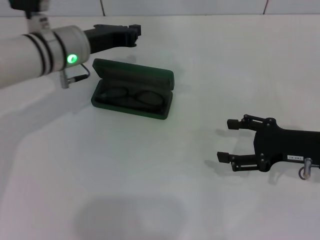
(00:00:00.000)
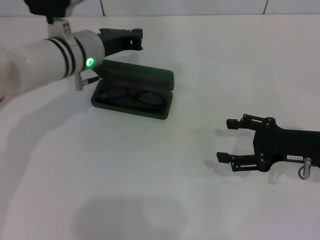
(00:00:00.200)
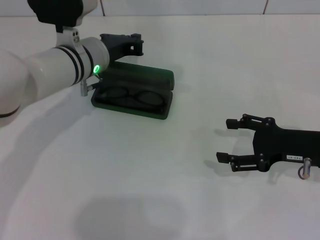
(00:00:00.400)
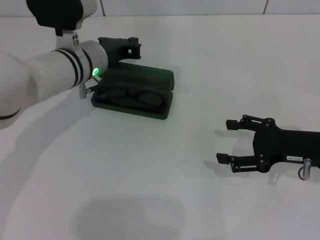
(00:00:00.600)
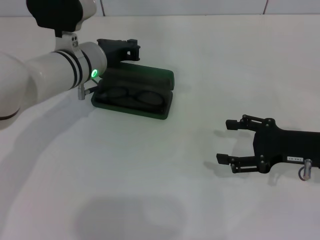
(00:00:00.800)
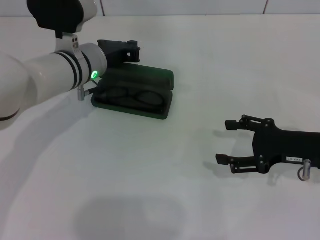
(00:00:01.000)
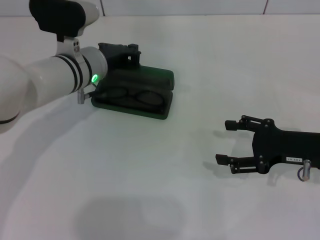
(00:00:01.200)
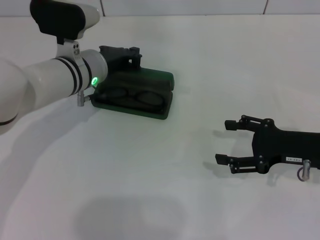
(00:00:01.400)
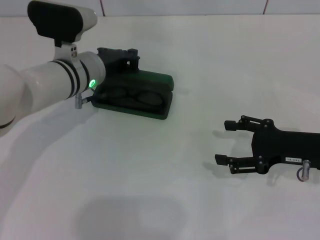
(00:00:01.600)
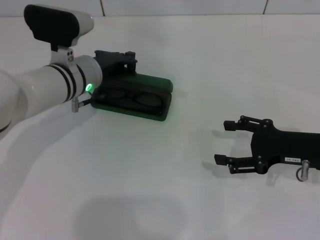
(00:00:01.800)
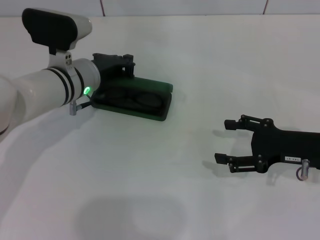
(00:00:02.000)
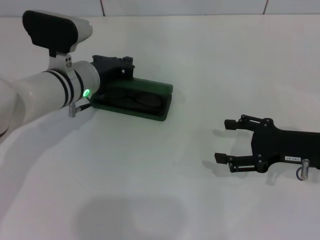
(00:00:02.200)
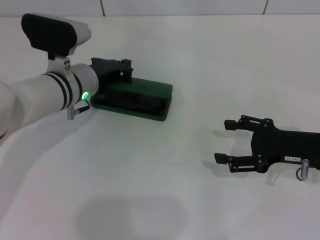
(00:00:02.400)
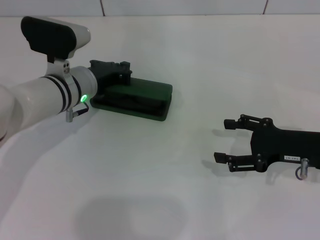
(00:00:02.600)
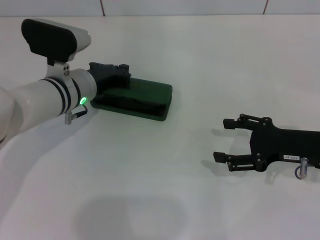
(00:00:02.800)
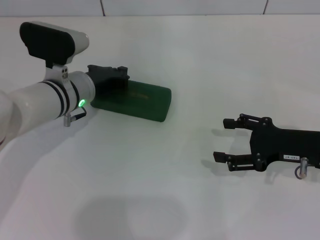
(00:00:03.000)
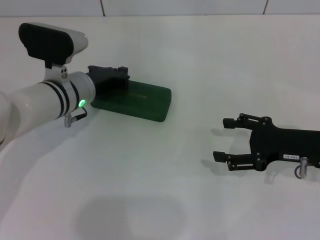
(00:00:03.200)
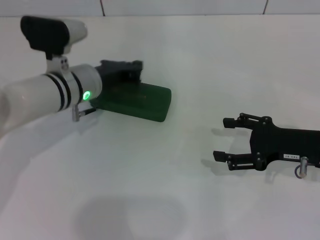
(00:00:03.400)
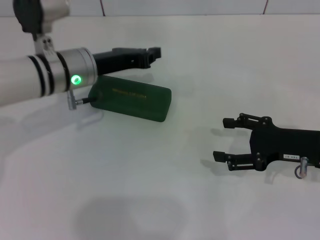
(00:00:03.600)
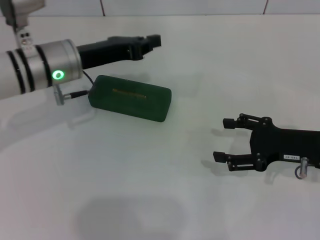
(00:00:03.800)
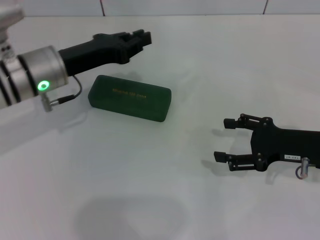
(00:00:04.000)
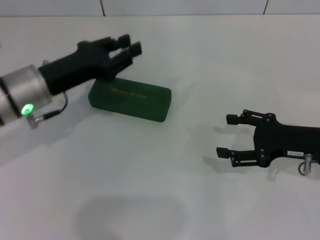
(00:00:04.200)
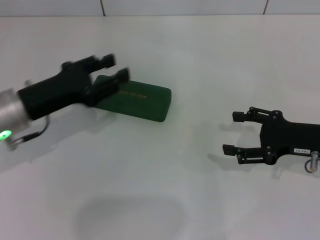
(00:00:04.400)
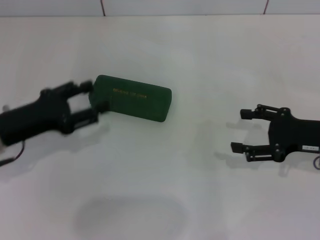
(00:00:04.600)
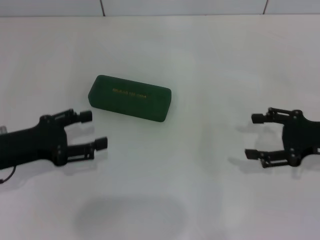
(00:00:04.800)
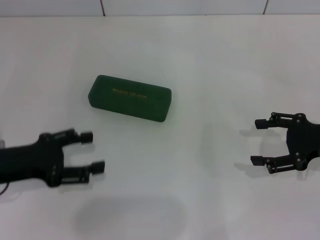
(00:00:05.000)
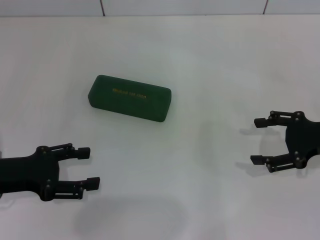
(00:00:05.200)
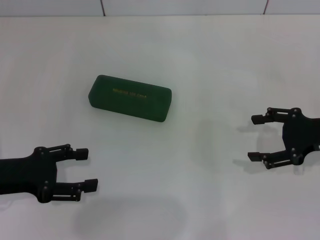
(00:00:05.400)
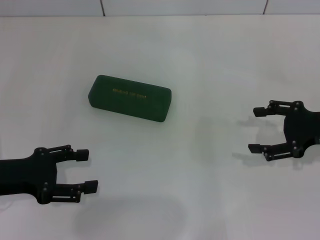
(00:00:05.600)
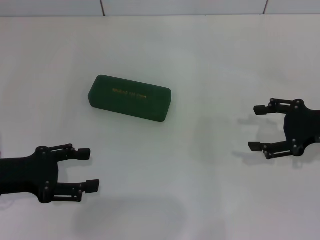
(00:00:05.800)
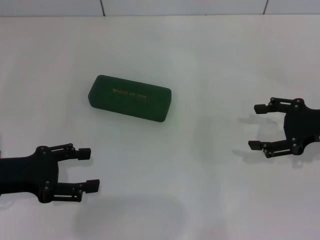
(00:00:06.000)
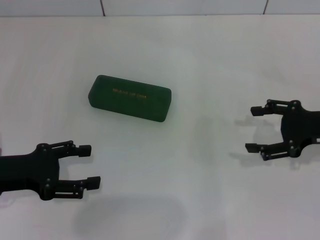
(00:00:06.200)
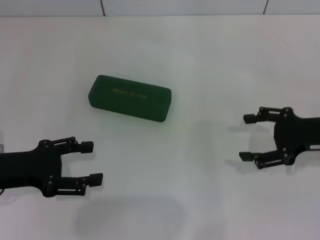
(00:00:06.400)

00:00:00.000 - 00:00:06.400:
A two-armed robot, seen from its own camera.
Step, 00:00:00.000 - 00:00:03.000: Close the glasses case with your left hand.
00:00:00.000 - 00:00:01.600: There are only small adjustments of the grippers.
00:00:01.600 - 00:00:03.200: The grippers move only a little.
00:00:03.200 - 00:00:04.800: The left gripper shifts roughly 15 cm to the left and backward, and opens.
00:00:04.800 - 00:00:06.400: The grippers move only a little.
